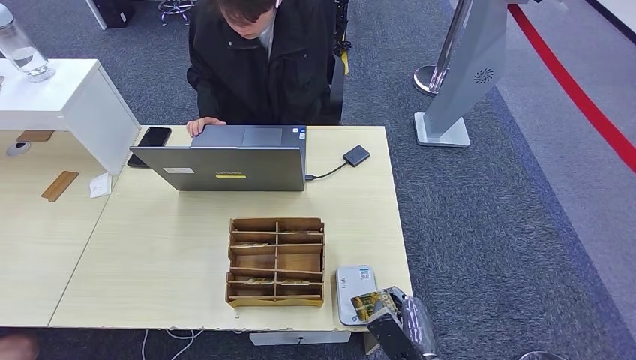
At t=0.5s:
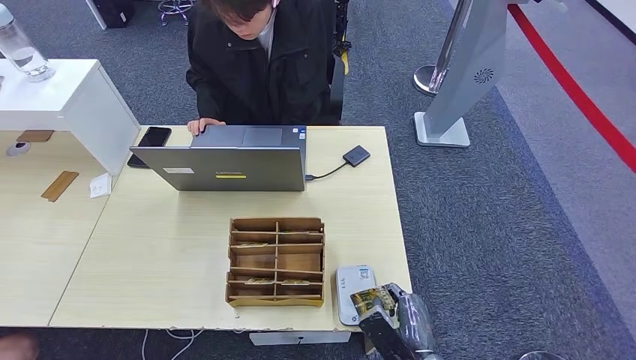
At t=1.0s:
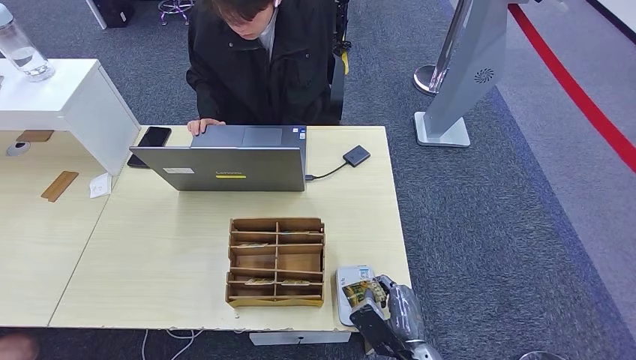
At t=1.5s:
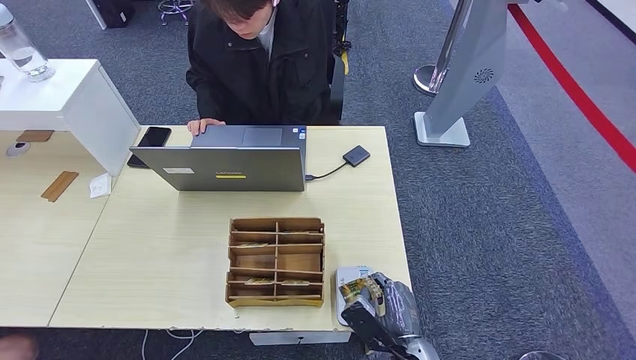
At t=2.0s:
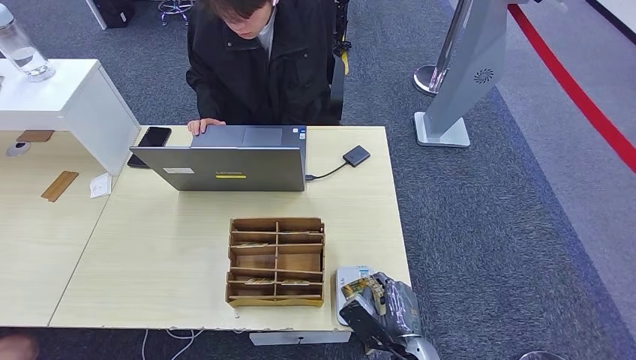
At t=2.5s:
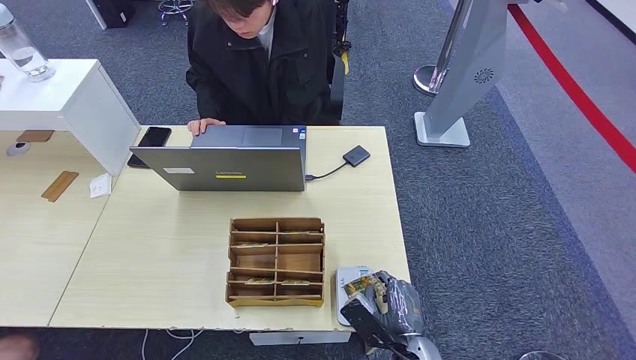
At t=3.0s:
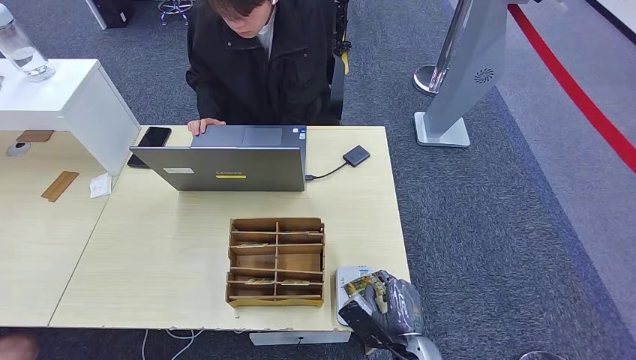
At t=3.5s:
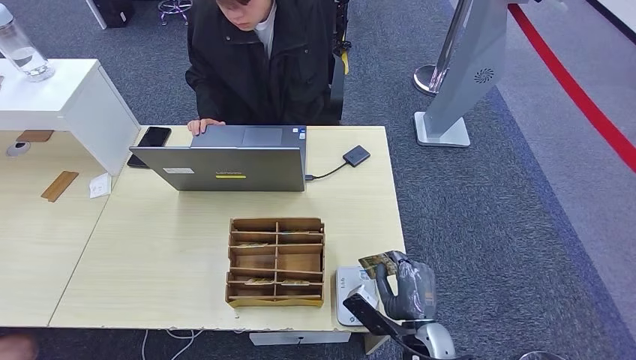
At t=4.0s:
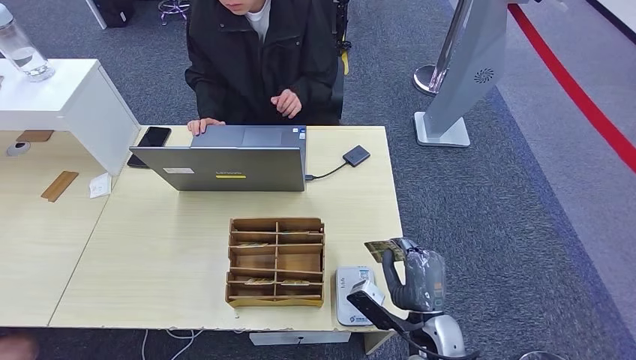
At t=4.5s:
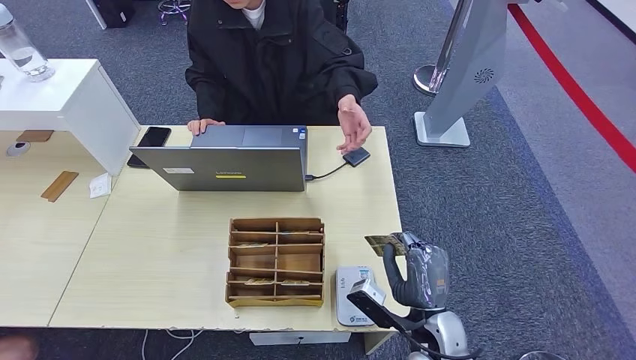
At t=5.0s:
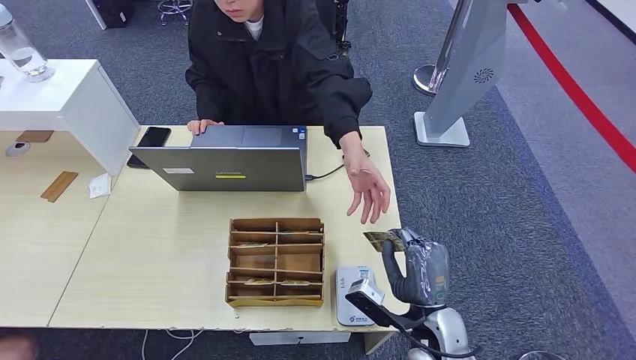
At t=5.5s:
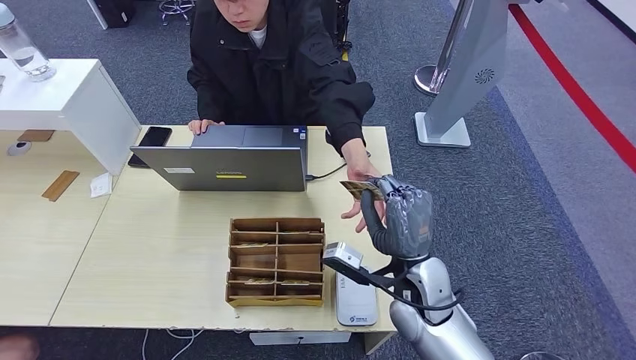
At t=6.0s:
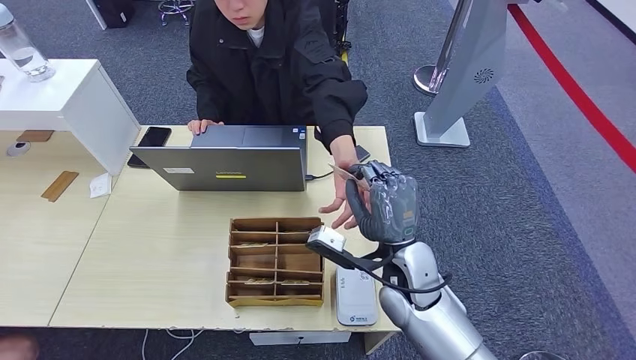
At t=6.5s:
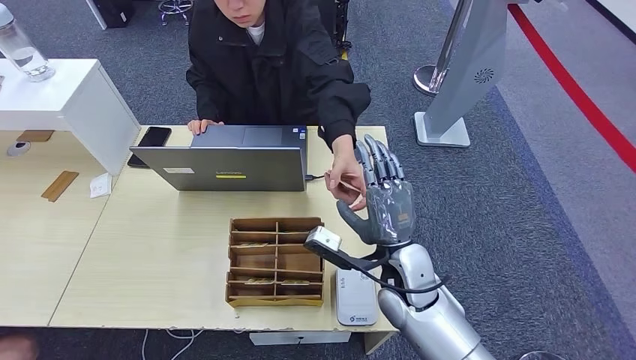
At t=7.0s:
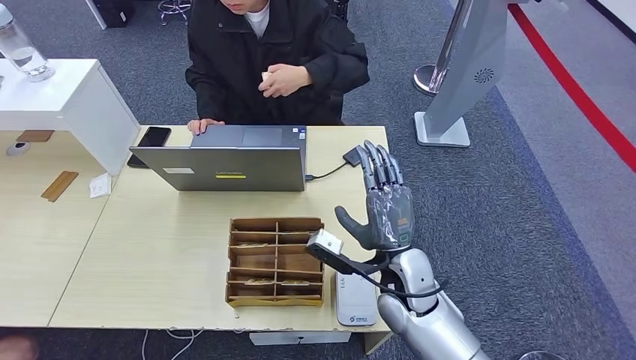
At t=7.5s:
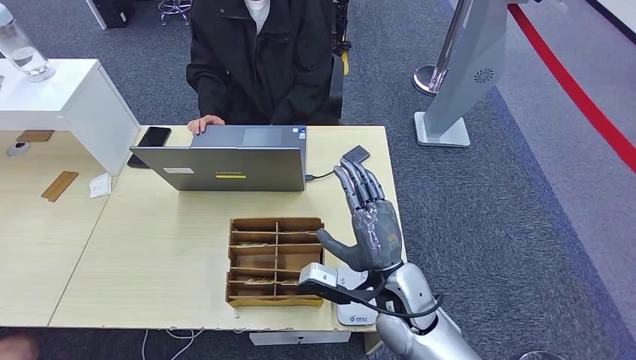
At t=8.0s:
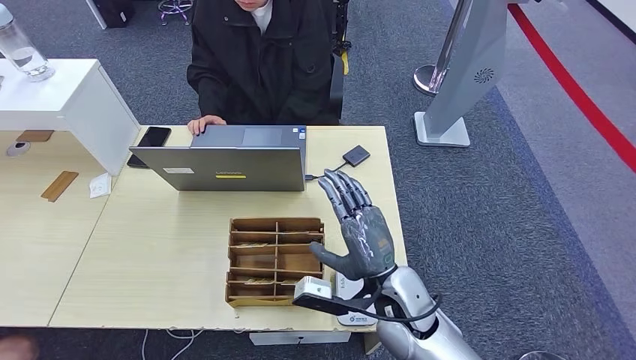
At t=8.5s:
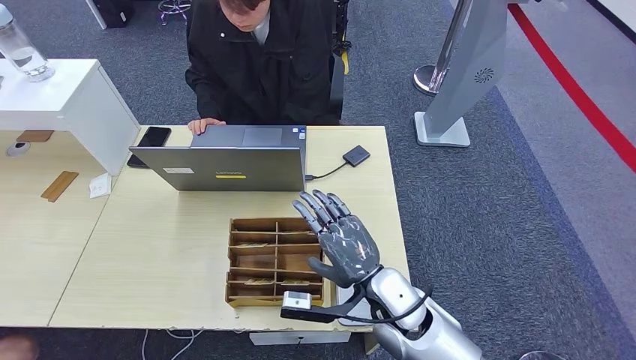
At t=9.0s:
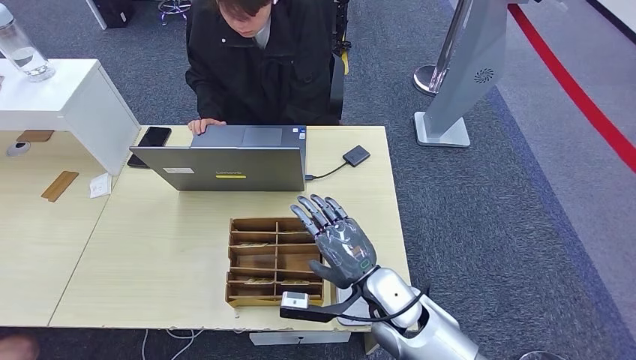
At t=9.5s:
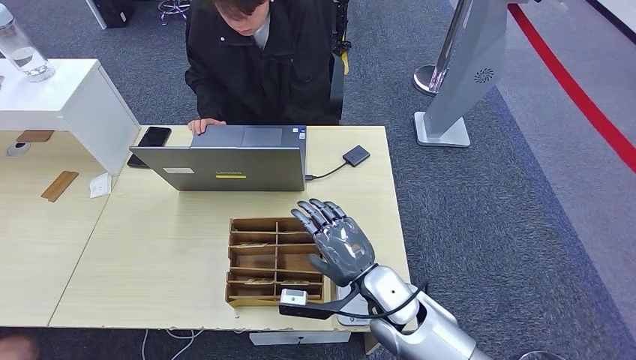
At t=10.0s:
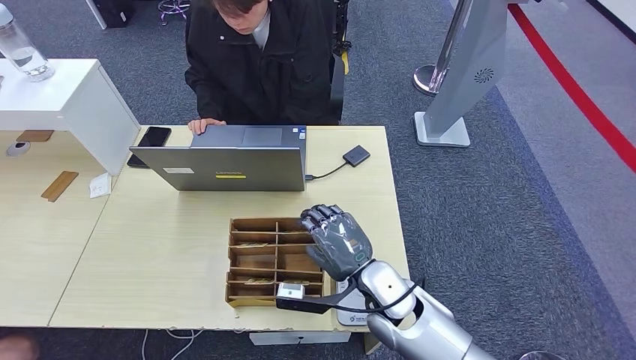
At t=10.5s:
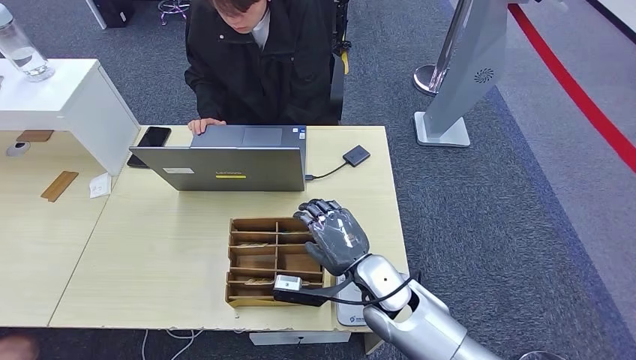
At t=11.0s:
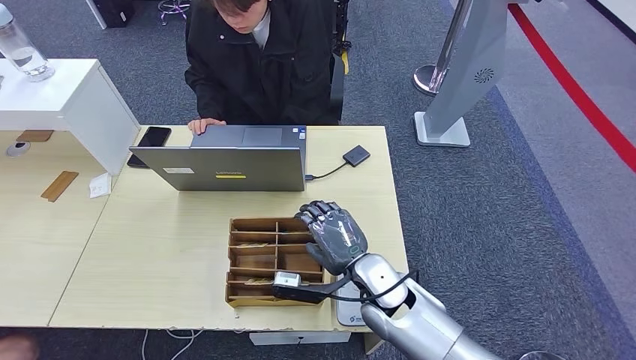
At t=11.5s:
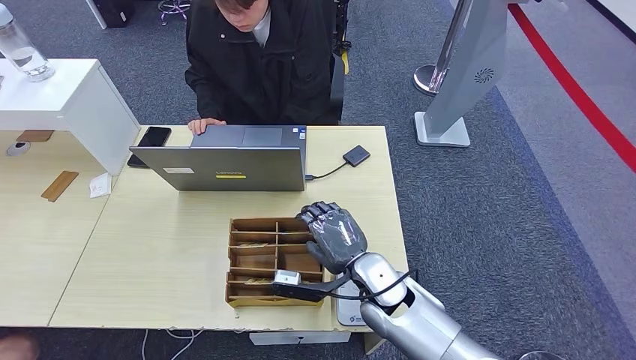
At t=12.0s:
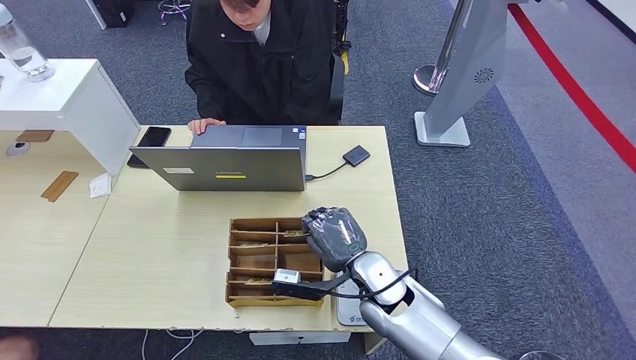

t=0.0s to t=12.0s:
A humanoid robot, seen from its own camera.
Step, t=1.5s to t=6.0s: Hand the ID card to the person.
t=0.0s to t=2.0s: The hands stay close to where they were, moving slightly.
t=2.0s to t=4.0s: The right hand goes roughly 5 cm upward.
t=4.0s to t=6.0s: The right hand heads upward and forward, covering some 15 cm.
t=6.0s to t=8.0s: The hands make only small movements.
t=10.0s to t=12.0s: There are only small adjustments of the hands.

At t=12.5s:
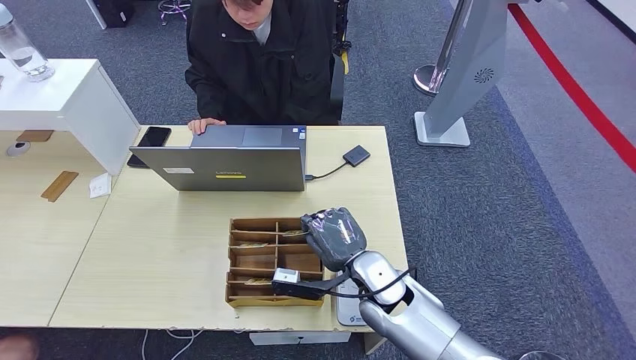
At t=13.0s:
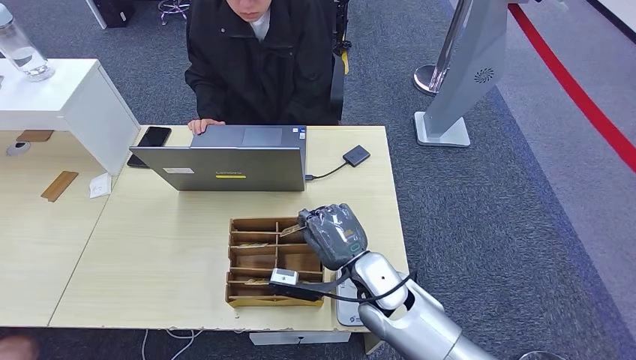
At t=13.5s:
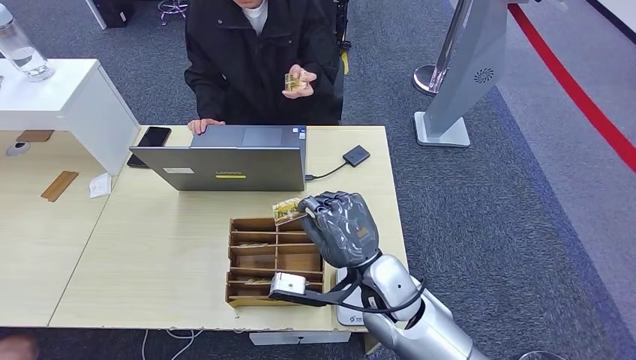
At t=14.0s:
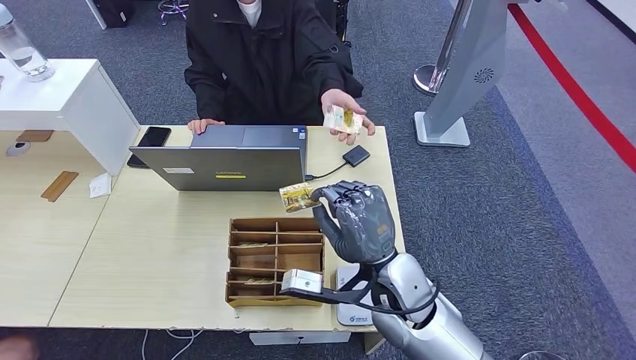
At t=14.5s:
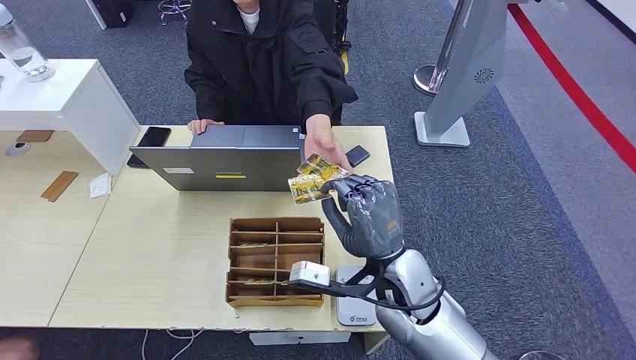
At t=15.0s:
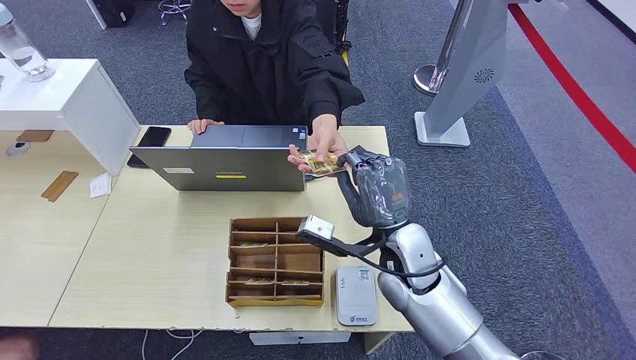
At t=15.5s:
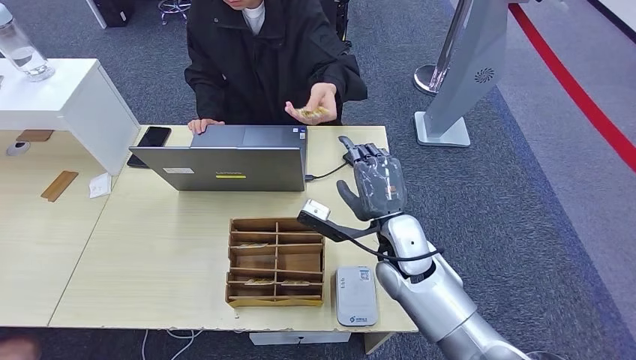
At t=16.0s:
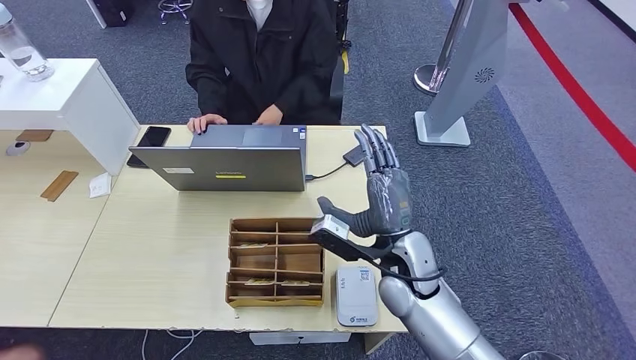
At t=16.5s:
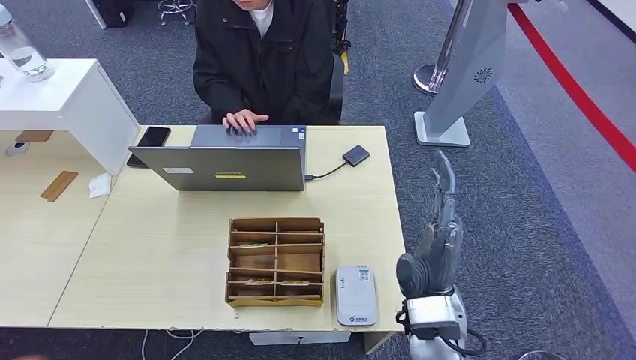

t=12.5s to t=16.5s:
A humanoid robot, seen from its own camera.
Step, t=13.5s to t=16.5s: Hand the room key to the person.
t=12.5s to t=14.5s: The right hand shifts some 5 cm upward.
t=14.5s to t=16.5s: The right hand moves roughly 5 cm.
